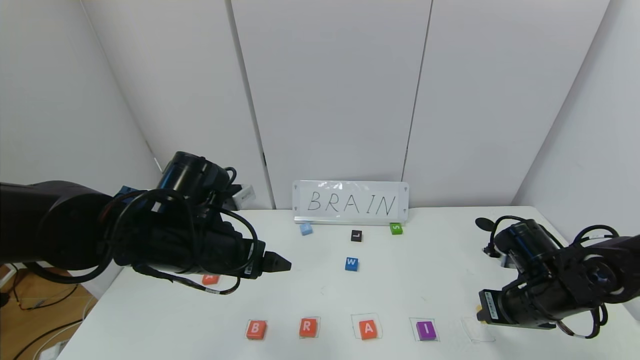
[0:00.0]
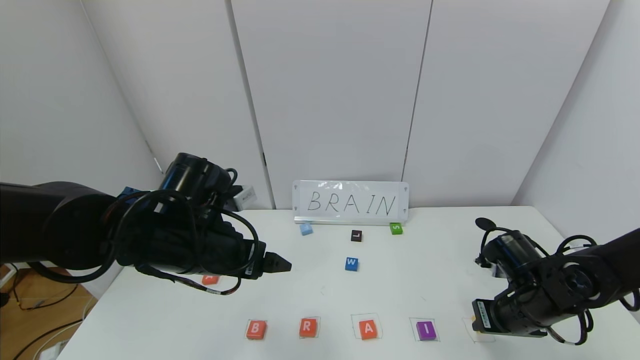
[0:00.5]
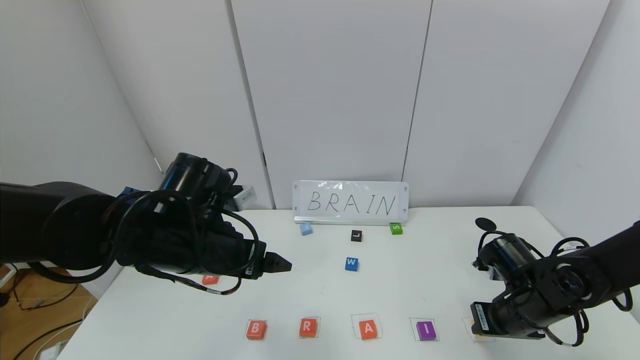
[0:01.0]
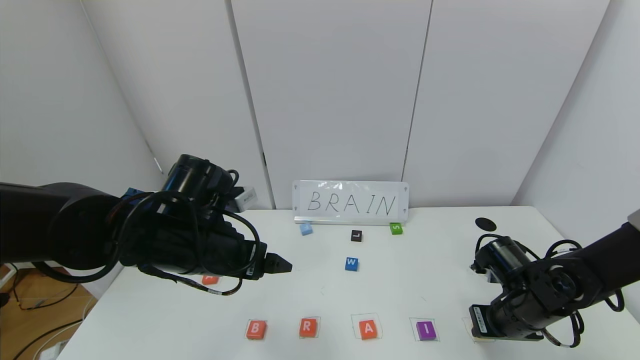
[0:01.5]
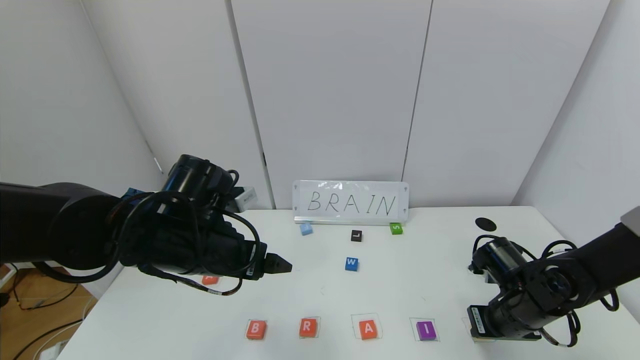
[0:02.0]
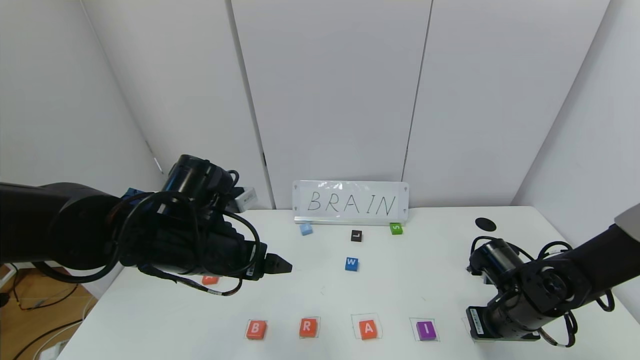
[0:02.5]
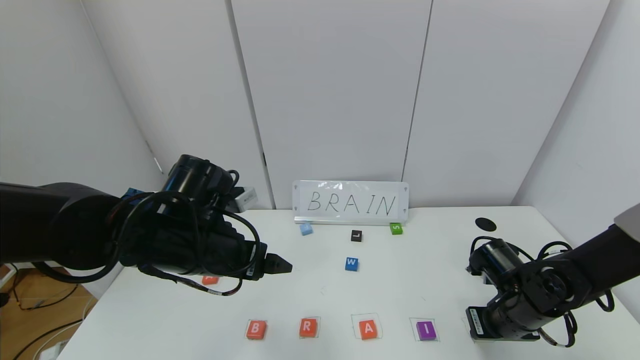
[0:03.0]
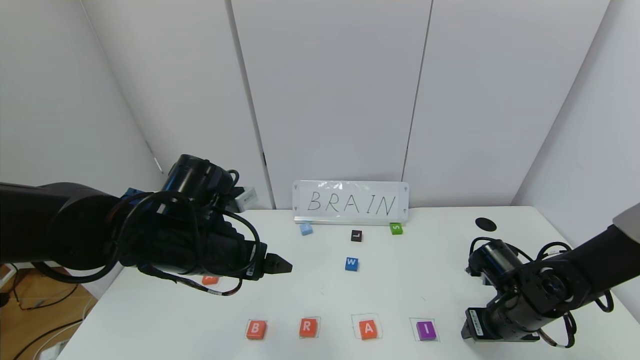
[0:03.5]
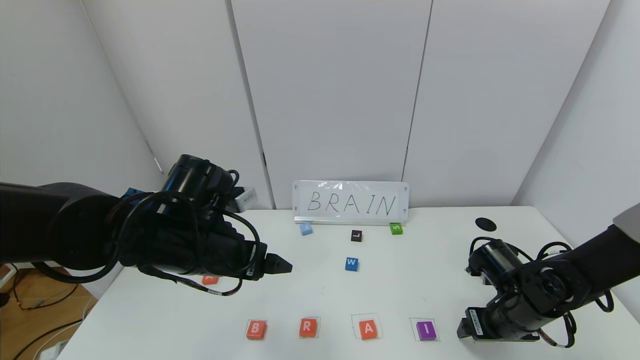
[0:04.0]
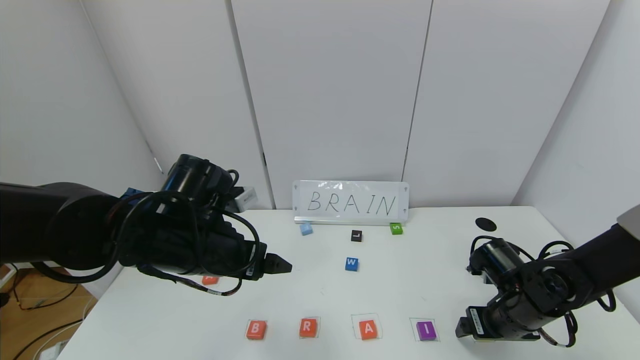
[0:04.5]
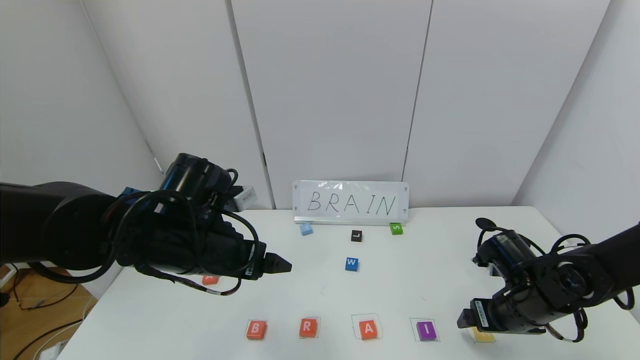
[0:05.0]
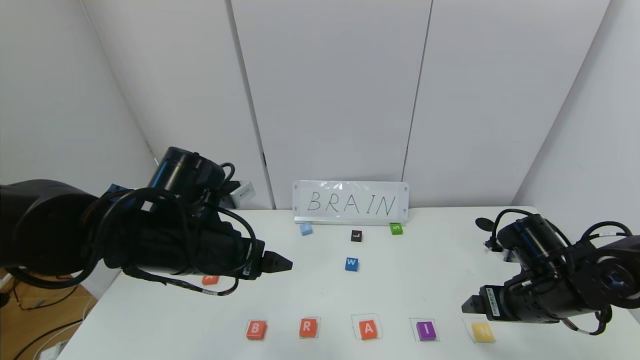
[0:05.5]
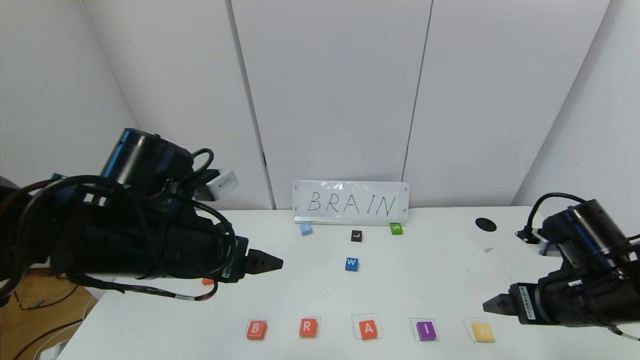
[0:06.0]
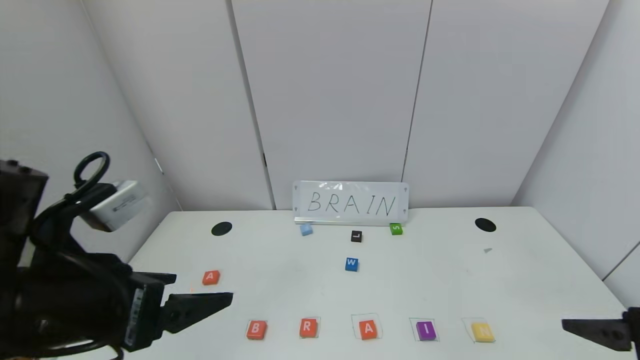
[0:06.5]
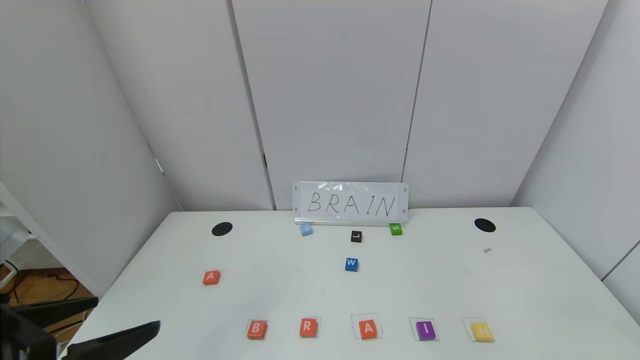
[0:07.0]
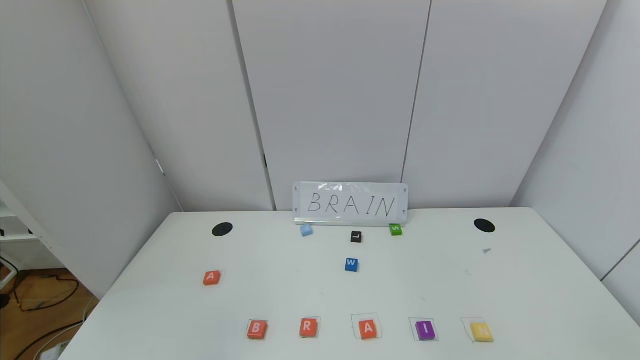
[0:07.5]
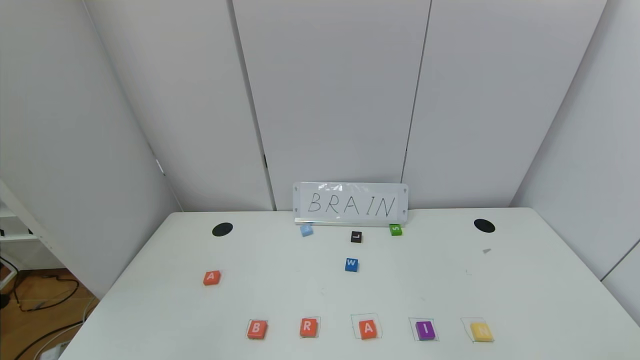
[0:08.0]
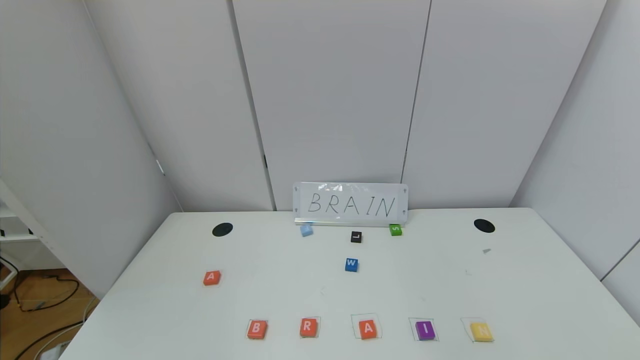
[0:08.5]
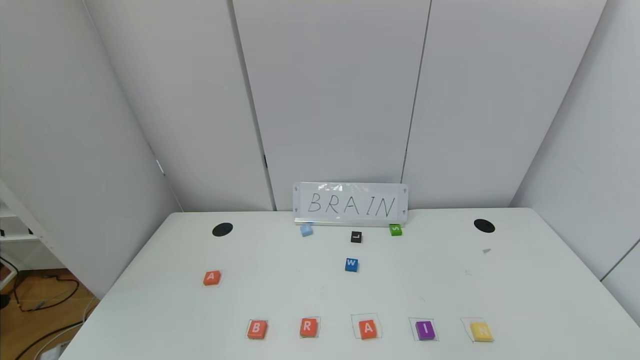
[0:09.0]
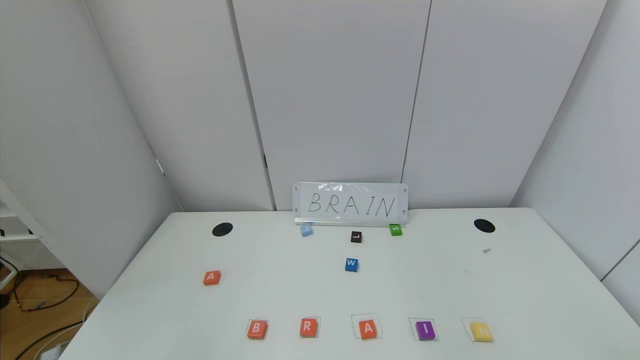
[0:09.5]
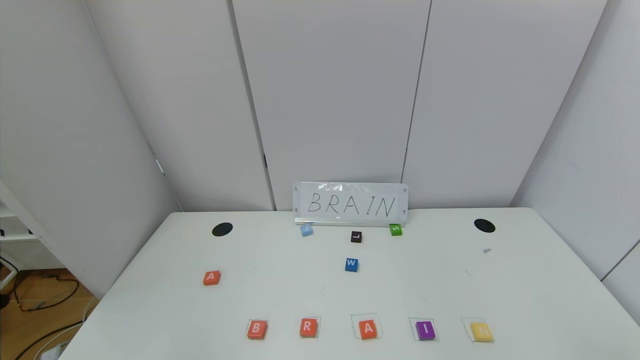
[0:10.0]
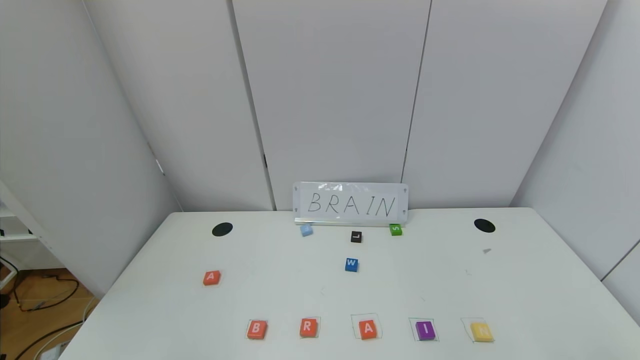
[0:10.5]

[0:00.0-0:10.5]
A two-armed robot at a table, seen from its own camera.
Task of the whole recording: use the gripper to find blocks with the letters b, a, a, and i on the table and arrange them into BAAI, then find r and N and turn the arranged baai into brian.
Step, 0:00.0 to 0:03.5: Place the block N in the fifth location.
0:00.0 to 0:02.0: There are only small adjustments of the grippers.
0:02.0 to 0:04.0: The right gripper opens up.
0:04.0 to 0:06.5: The right gripper heads upward and backward, covering roughly 25 cm. Meanwhile the left gripper shifts some 15 cm backward and upward.
0:06.5 to 0:08.5: Both grippers move backward, roughly 25 cm.

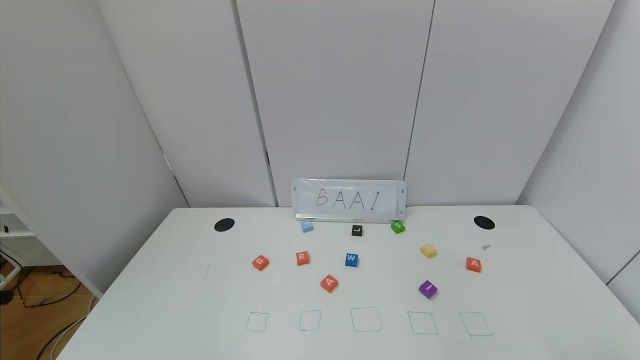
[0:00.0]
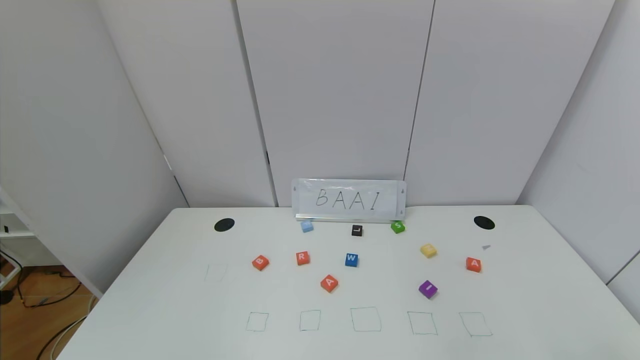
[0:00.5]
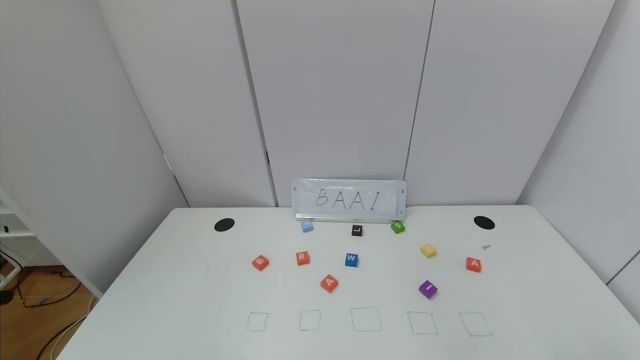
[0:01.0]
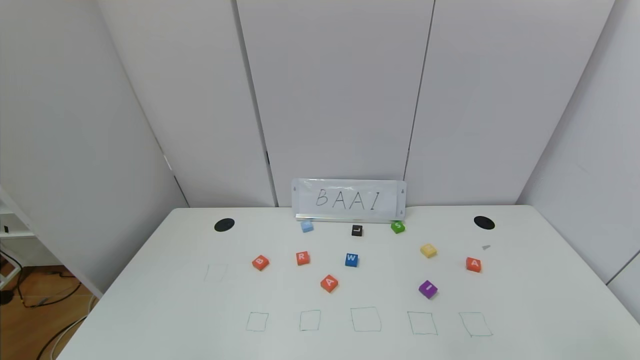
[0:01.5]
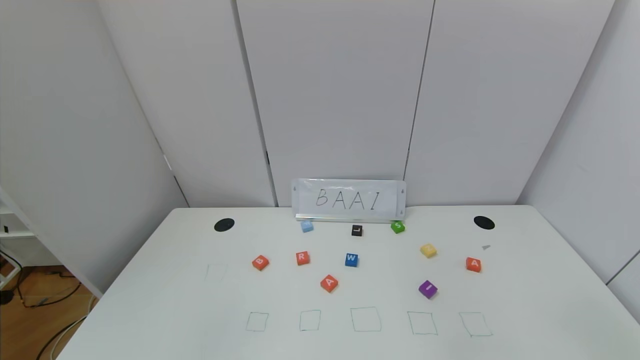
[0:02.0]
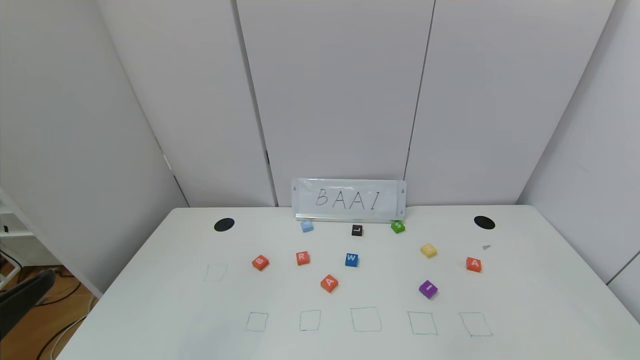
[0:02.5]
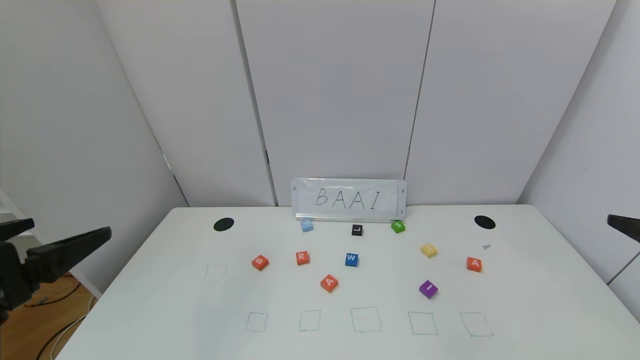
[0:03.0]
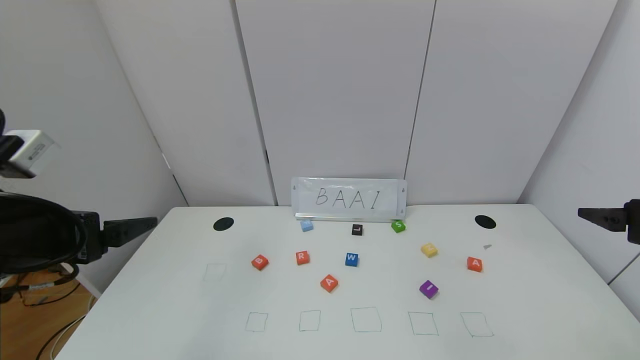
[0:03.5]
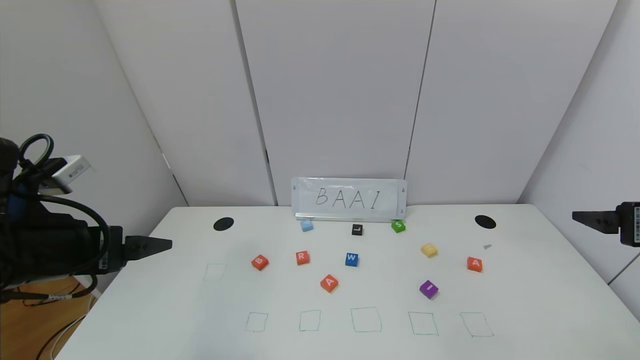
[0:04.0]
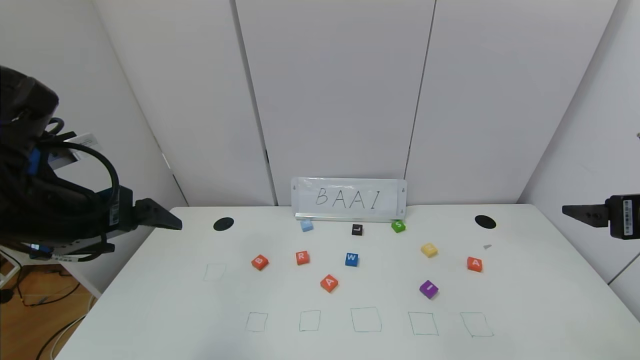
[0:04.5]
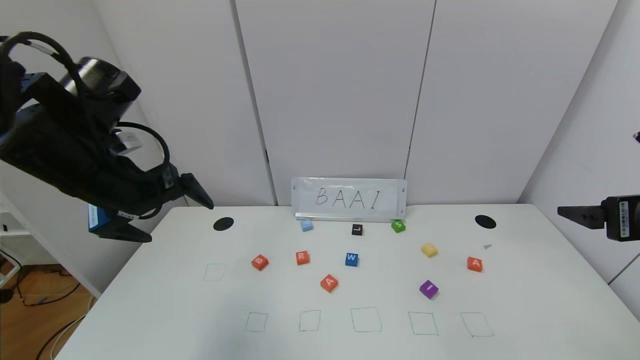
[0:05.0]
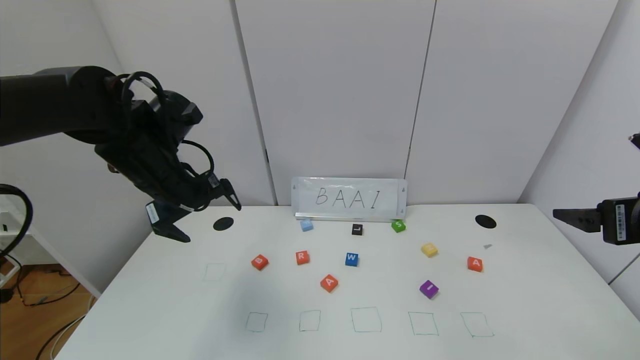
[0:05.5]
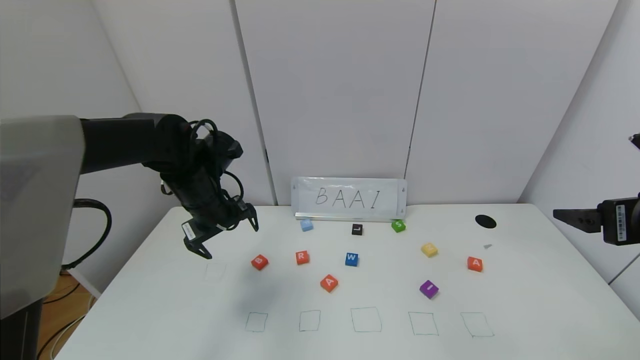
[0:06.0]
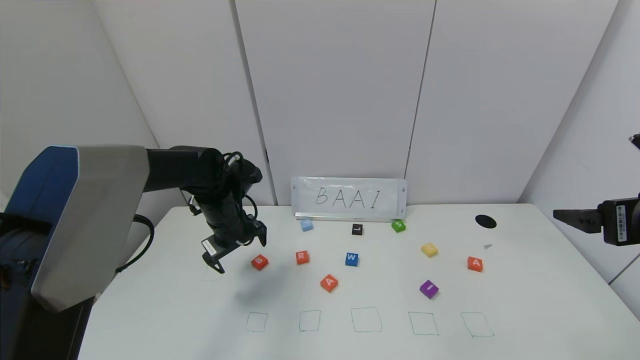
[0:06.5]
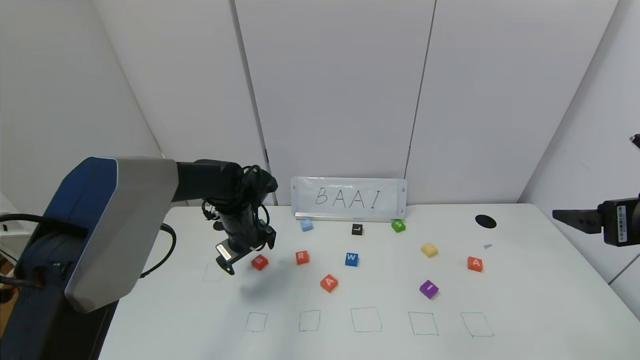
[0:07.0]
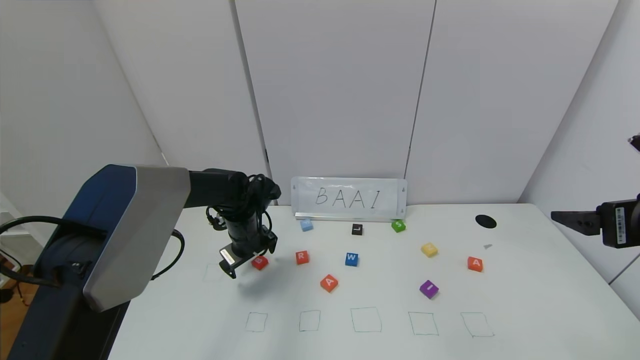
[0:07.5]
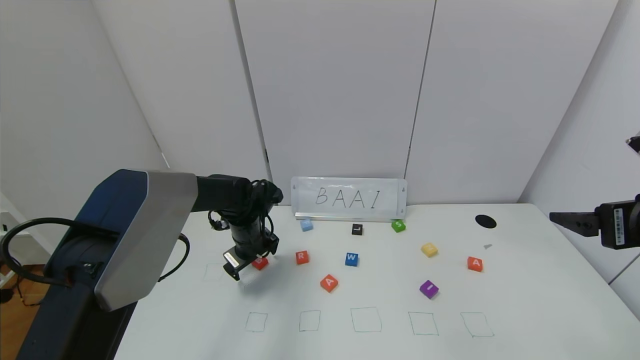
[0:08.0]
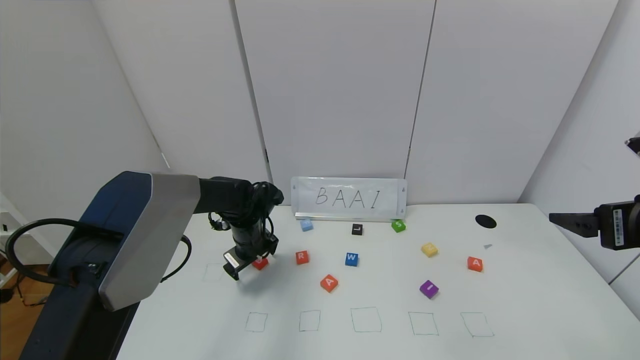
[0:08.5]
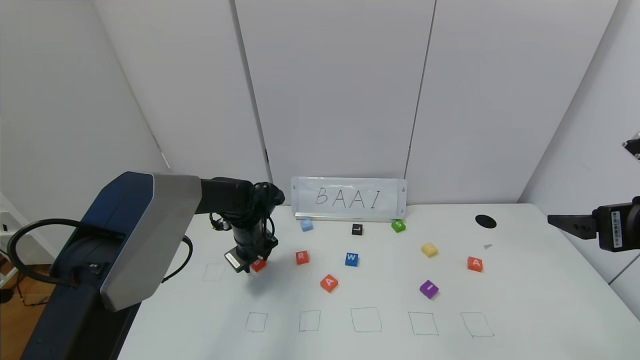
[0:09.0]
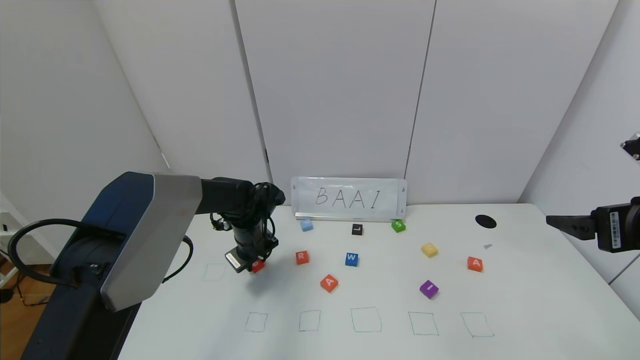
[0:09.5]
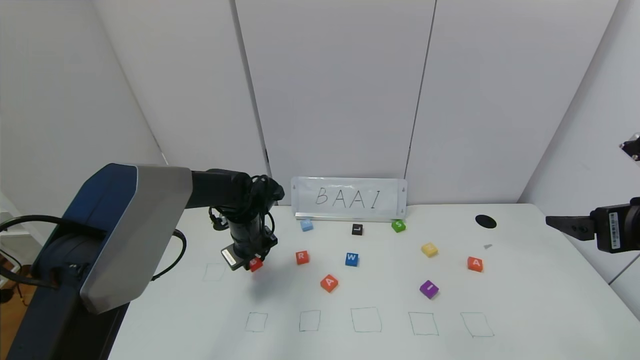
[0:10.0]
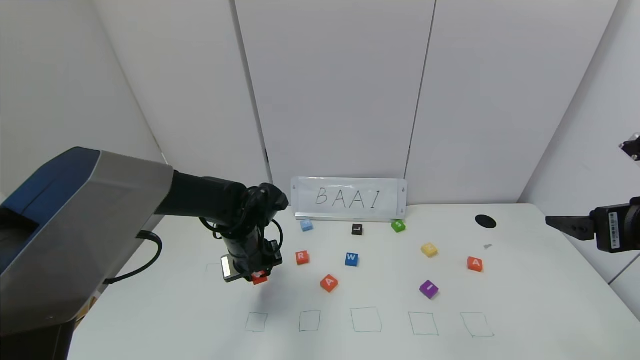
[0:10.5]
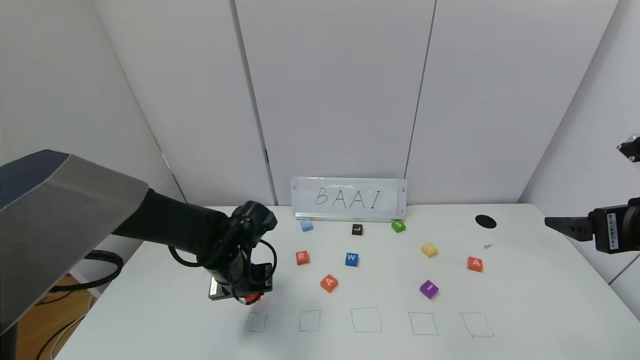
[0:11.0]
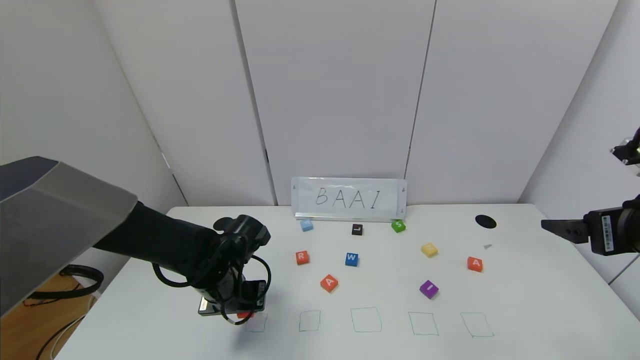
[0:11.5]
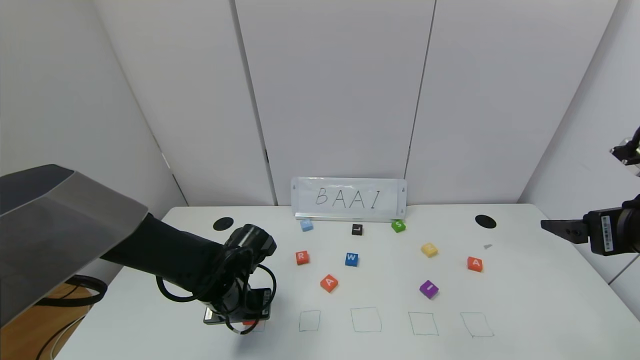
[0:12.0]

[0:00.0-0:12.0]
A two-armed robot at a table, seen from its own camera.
Task of the whole recording: use the gripper to find blocks with the letters b, a, a, and i on the table and arrange them into BAAI, then find r and N and turn the arranged baai into brian.
0:02.0 to 0:04.0: Both grippers move forward, roughly 20 cm.
0:04.0 to 0:06.0: The left gripper goes some 20 cm forward.
0:06.0 to 0:08.0: The left gripper is displaced downward by roughly 10 cm.
0:08.0 to 0:10.0: The left gripper closes its fingers.
0:10.0 to 0:12.0: The left gripper moves backward, approximately 15 cm.
